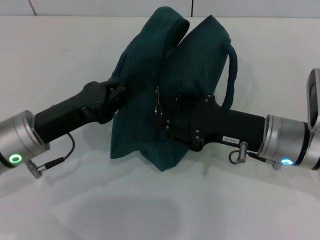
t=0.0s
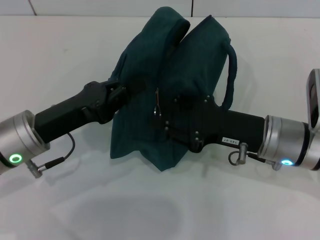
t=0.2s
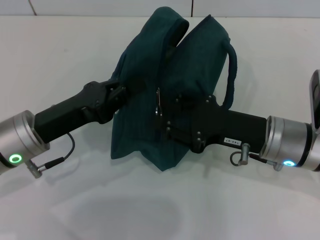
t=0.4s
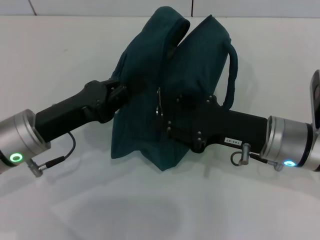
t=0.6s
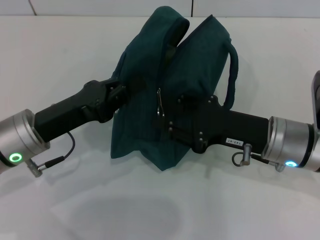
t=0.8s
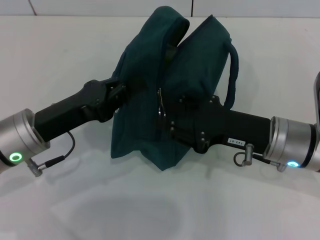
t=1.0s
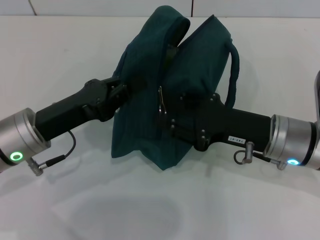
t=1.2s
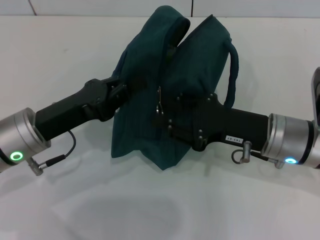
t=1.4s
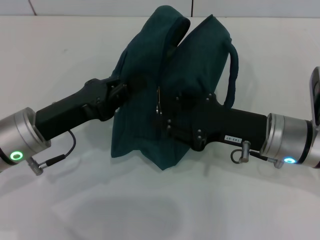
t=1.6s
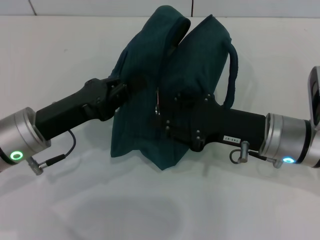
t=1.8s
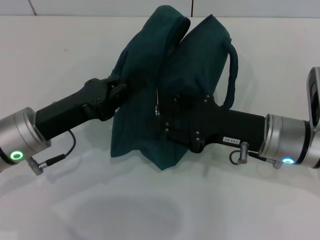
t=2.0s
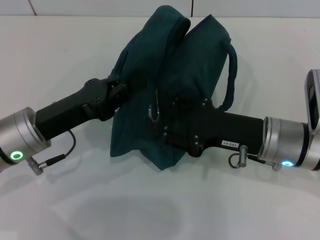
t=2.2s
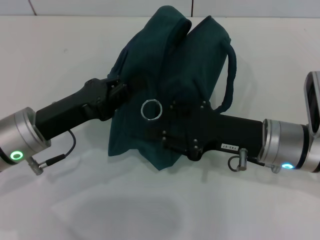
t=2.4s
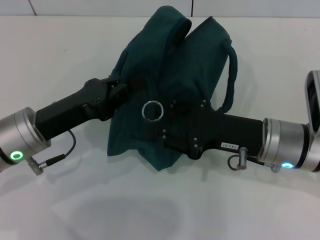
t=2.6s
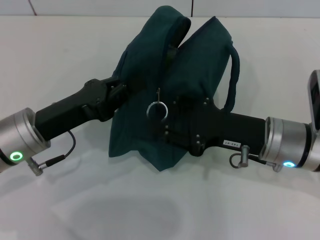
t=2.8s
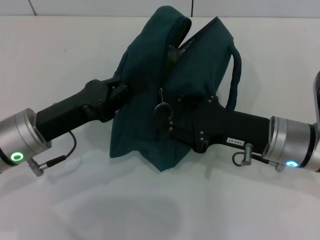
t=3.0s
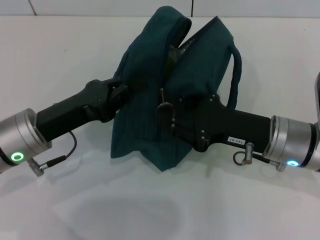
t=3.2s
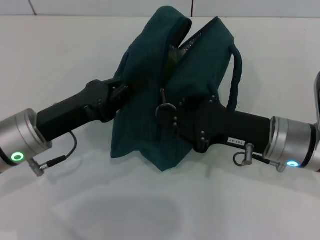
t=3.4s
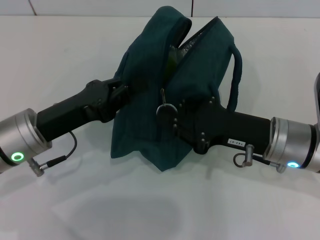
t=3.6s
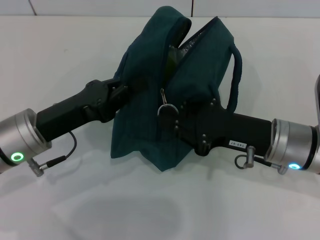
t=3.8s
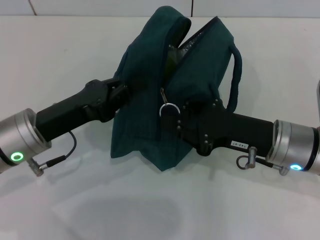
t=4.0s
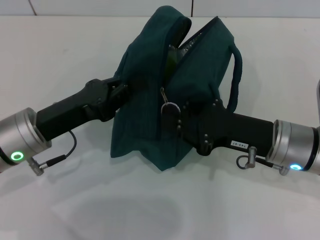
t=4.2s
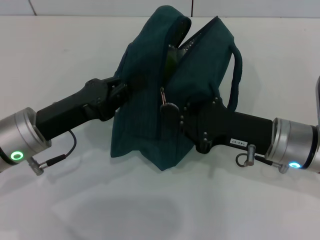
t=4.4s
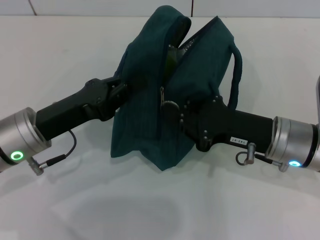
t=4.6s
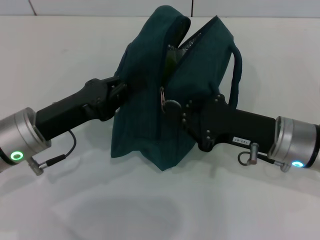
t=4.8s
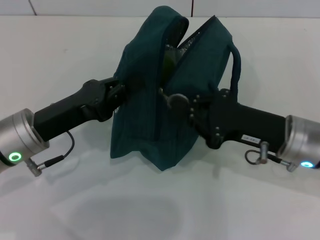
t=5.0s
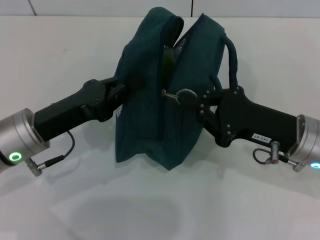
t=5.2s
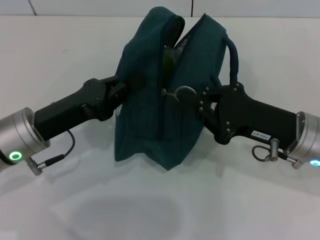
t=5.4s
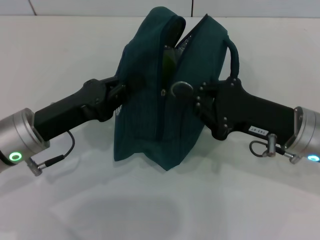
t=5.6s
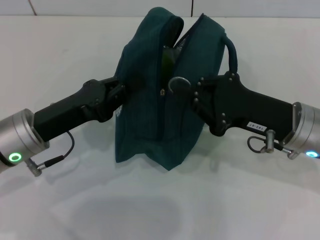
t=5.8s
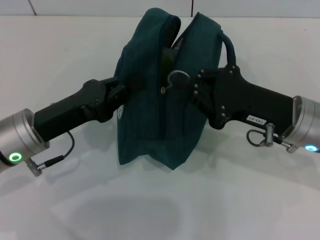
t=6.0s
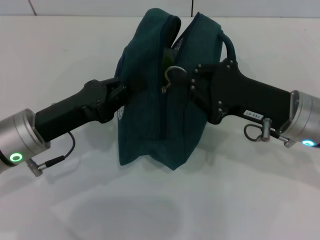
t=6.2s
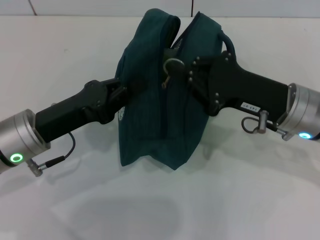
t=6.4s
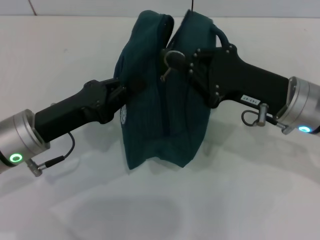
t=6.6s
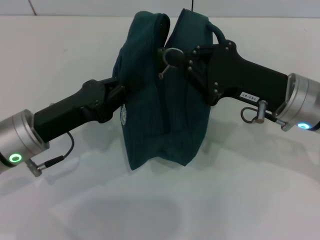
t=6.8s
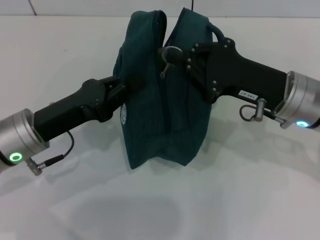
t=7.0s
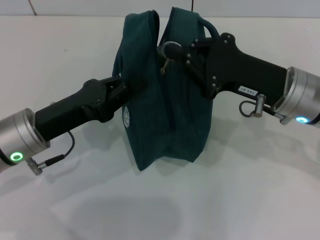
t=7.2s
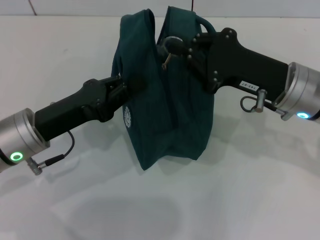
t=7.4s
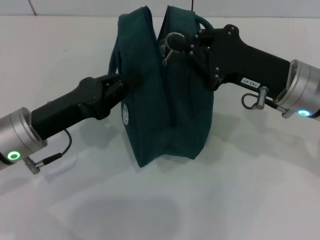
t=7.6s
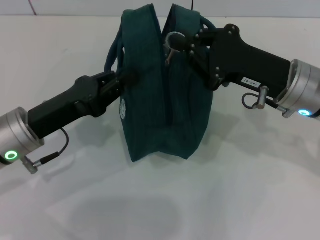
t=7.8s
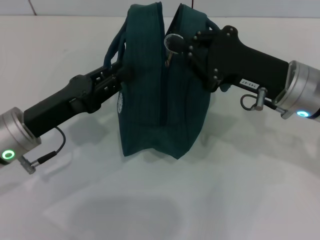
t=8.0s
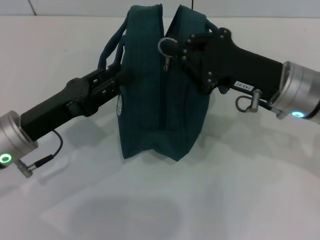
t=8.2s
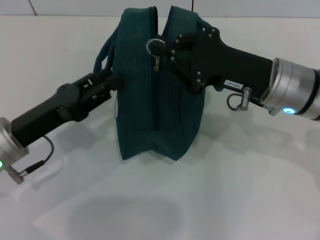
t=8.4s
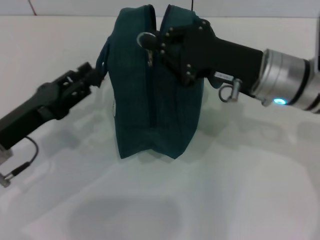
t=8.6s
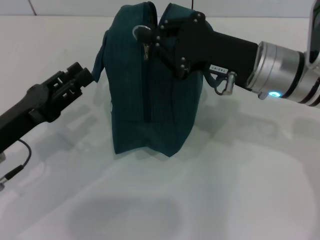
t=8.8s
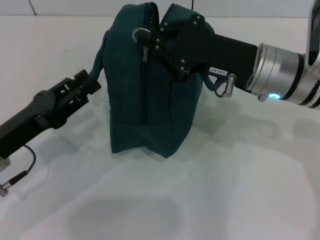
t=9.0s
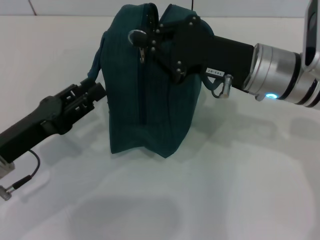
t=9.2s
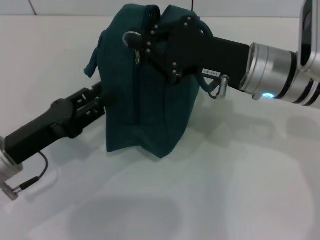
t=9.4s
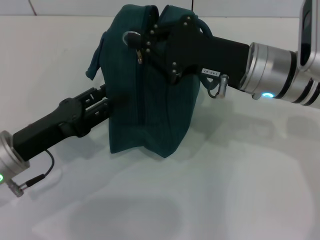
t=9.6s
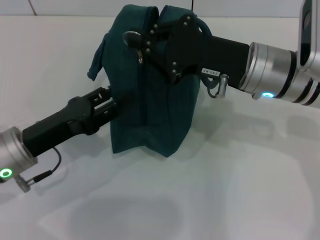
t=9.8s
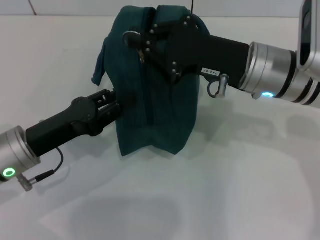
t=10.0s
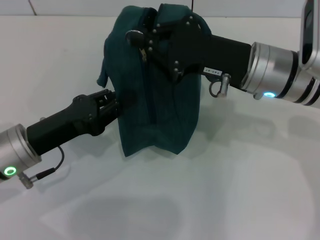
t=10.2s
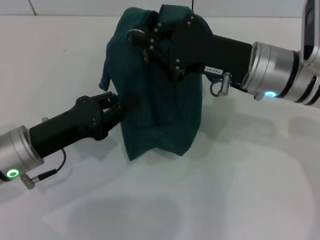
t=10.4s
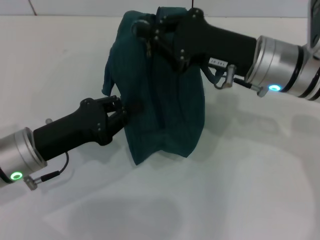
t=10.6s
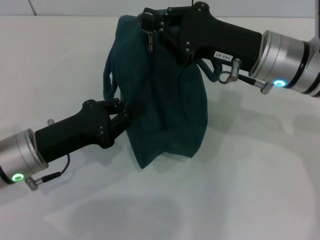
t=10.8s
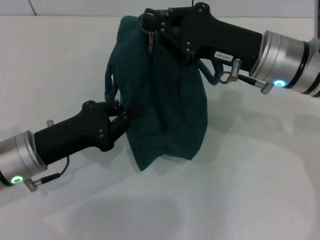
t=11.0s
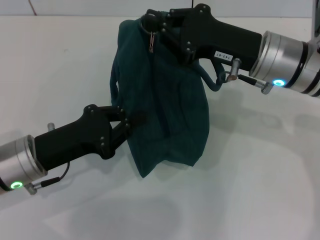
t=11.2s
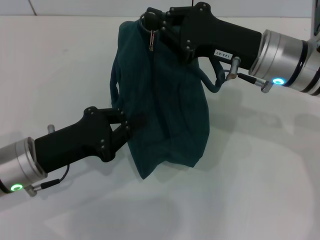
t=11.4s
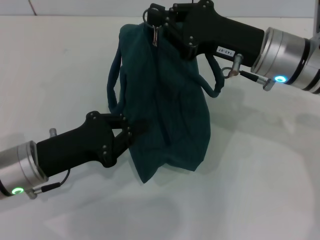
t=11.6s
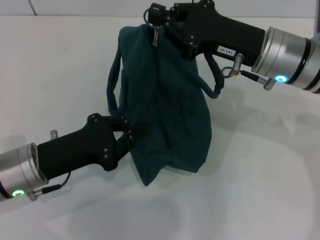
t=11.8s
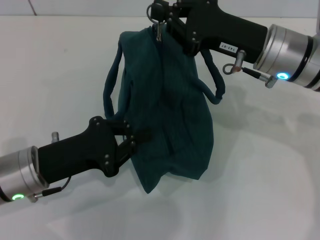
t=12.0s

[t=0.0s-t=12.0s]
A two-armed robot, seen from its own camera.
t=0.0s to t=3.0s: The two grippers keep their place.
t=3.0s to t=4.4s: The right gripper closes up.
t=4.4s to t=6.0s: The grippers make only small movements.
t=6.0s to t=7.6s: The grippers move only a little.
t=7.6s to t=9.0s: The left gripper ends up about 5 cm from where it was, and opens.
t=9.0s to t=10.4s: The left gripper closes its fingers.

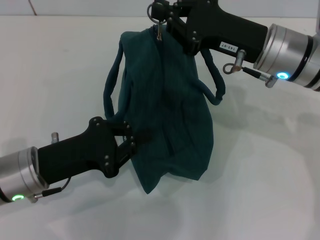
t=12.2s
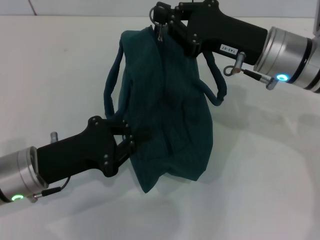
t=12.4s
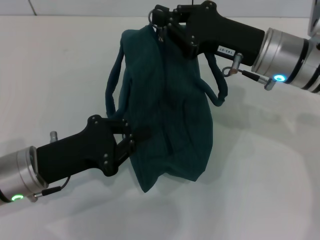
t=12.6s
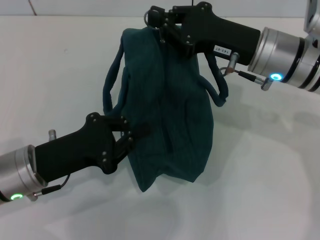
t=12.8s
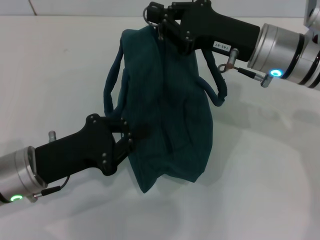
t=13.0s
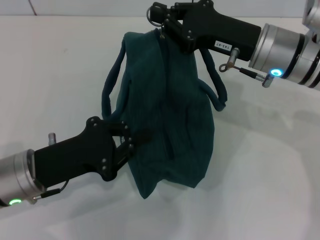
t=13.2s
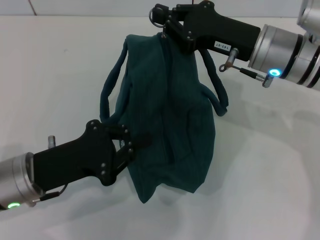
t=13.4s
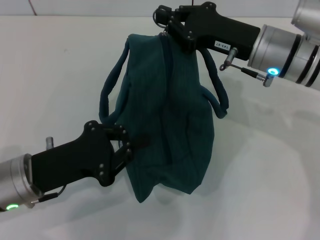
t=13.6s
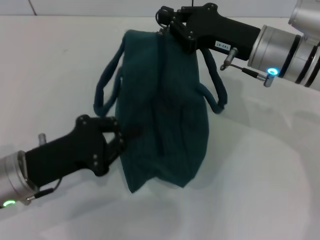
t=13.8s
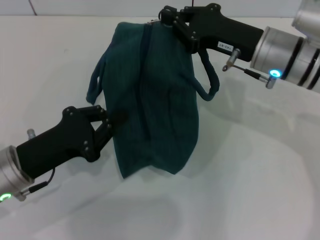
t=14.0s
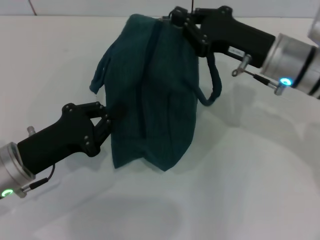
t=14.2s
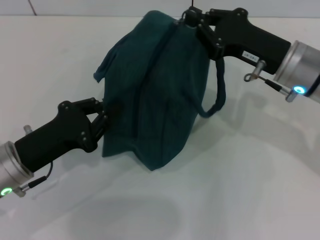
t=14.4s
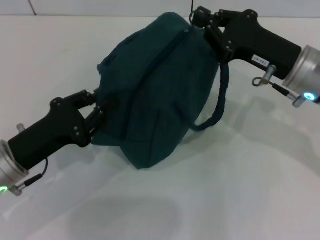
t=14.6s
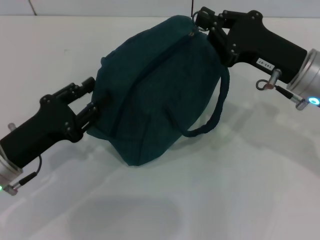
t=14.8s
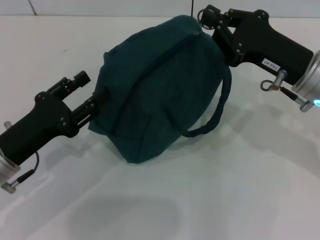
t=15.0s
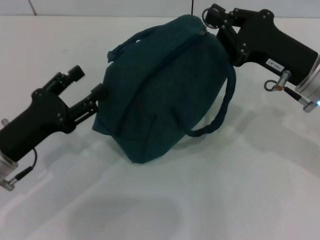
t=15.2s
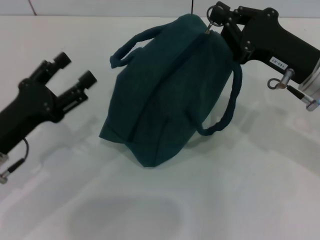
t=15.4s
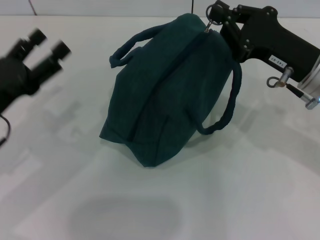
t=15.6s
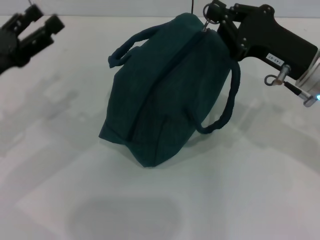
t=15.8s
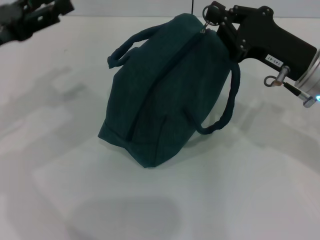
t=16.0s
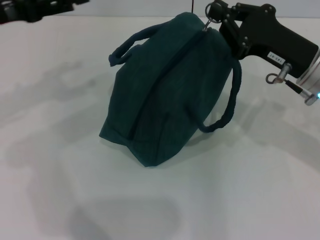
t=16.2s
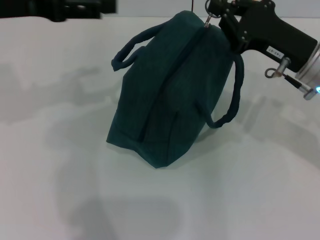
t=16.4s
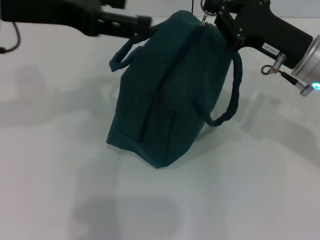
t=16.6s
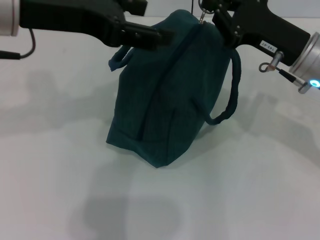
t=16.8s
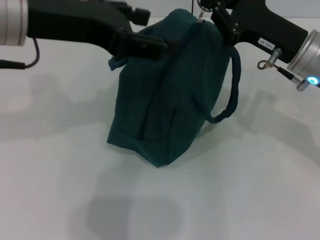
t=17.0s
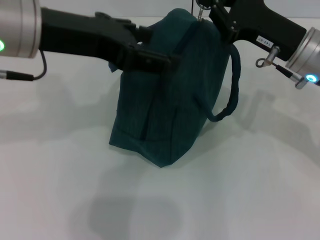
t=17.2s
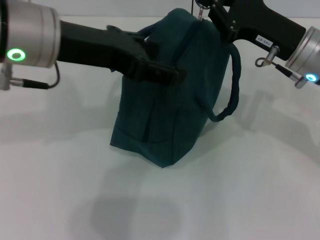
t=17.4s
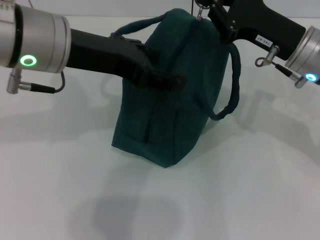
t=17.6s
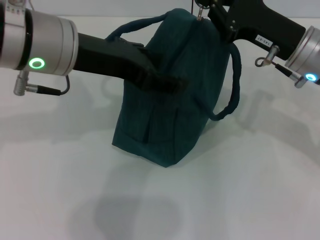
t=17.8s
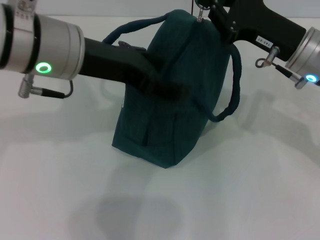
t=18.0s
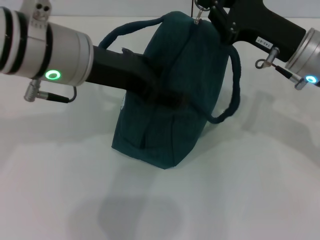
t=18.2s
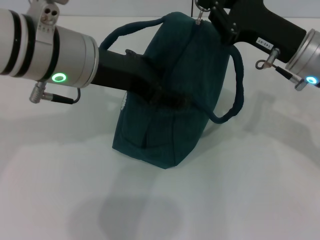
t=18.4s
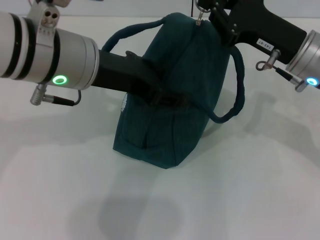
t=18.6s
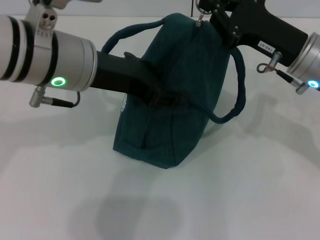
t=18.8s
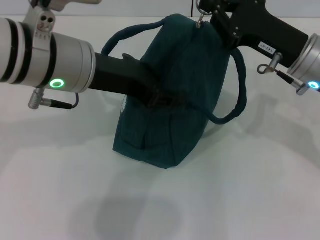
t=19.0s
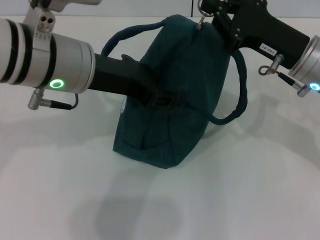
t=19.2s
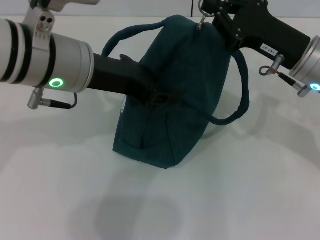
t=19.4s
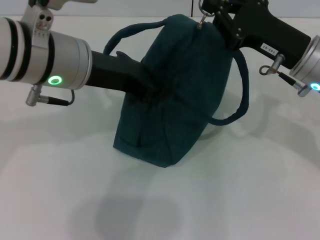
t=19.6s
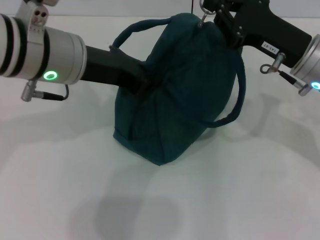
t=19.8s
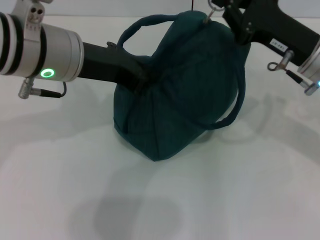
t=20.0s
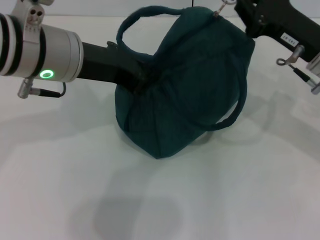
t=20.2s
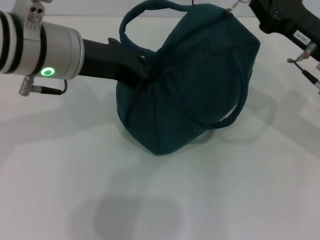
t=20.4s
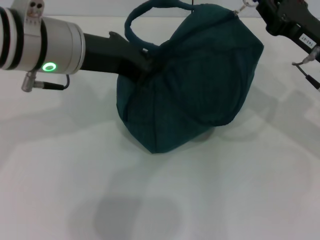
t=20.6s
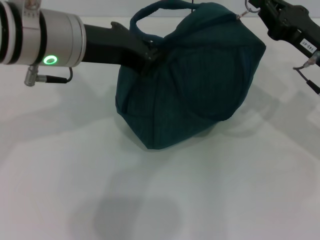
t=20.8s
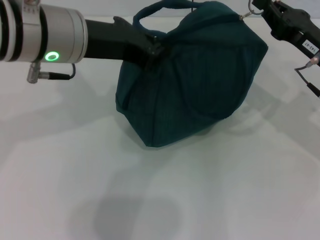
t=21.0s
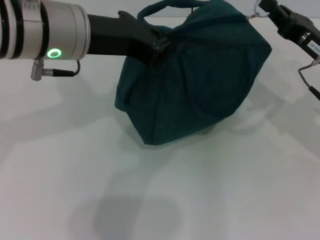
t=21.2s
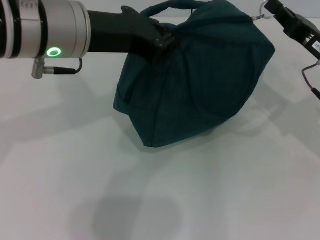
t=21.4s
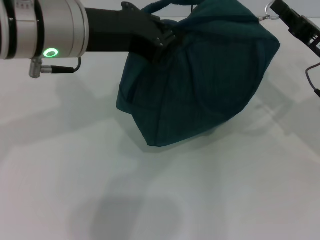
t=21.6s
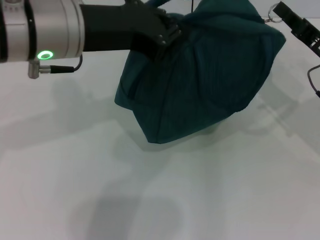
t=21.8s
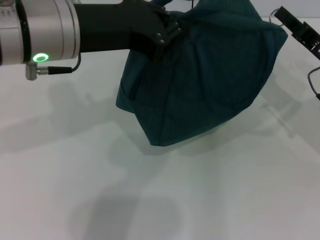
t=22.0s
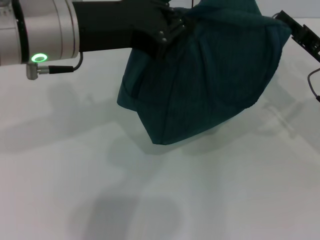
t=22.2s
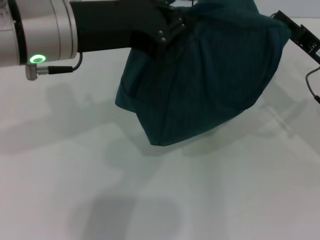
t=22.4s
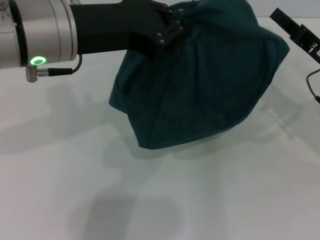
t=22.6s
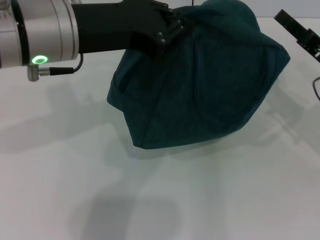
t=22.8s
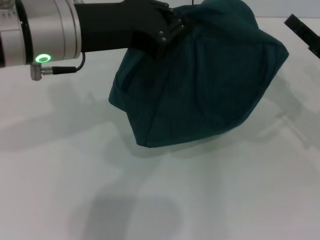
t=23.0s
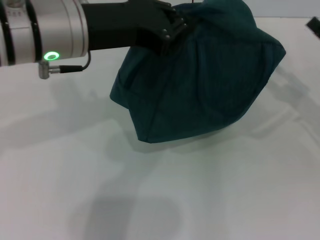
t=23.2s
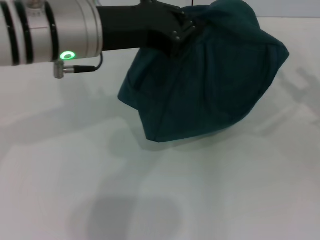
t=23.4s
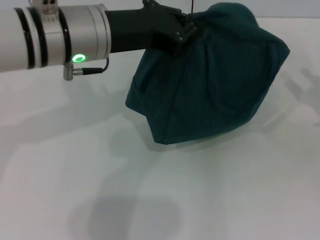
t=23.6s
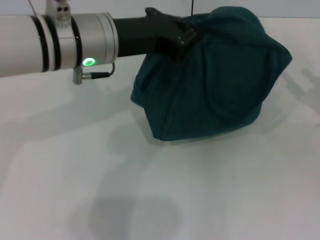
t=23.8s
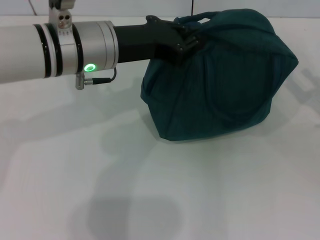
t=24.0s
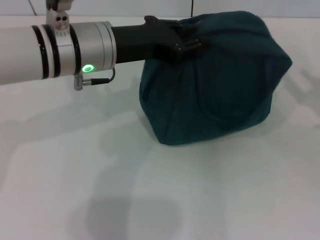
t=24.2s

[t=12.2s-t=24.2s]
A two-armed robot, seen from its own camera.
Step, t=12.2s to t=22.6s: Zip up the lunch bag with your right hand.
t=12.2s to t=13.8s: The grippers stay close to where they were, moving slightly.
t=13.8s to t=15.2s: The right gripper shifts approximately 10 cm to the right and backward. The left gripper opens its fingers.
t=15.2s to t=16.6s: The left gripper travels upward and forward by some 25 cm.
t=16.6s to t=18.2s: The left gripper travels to the right by about 10 cm.
t=18.2s to t=19.8s: The left gripper closes its fingers.
t=19.8s to t=21.2s: The right gripper shifts roughly 5 cm to the right.
t=21.2s to t=22.6s: The grippers stay close to where they were, moving slightly.
t=22.6s to t=24.2s: The right gripper is displaced to the right by about 10 cm, and opens its fingers, while the left gripper shifts about 5 cm downward.
